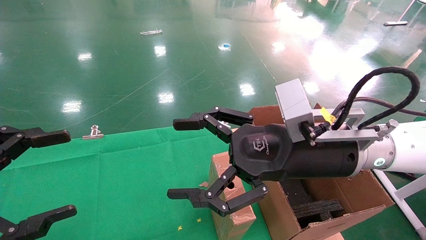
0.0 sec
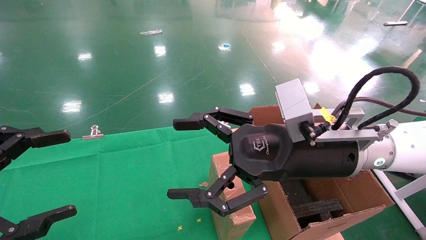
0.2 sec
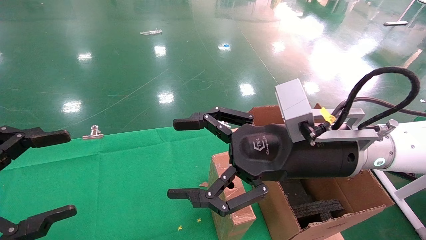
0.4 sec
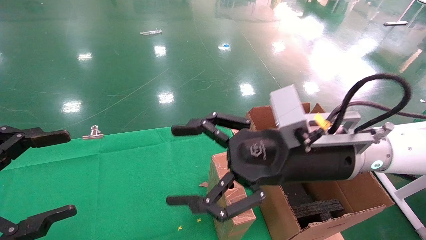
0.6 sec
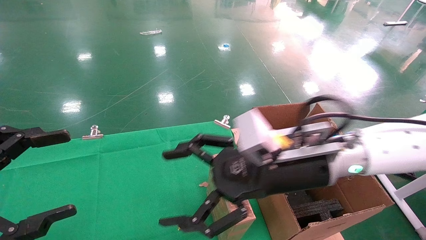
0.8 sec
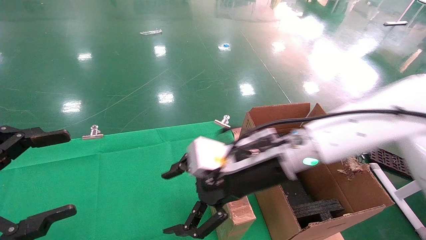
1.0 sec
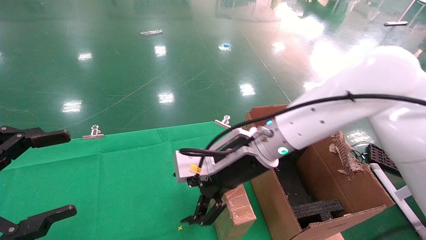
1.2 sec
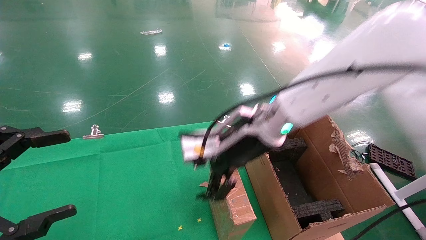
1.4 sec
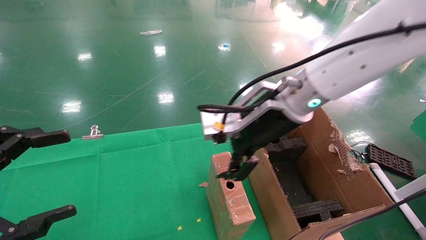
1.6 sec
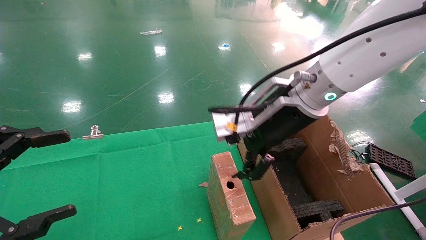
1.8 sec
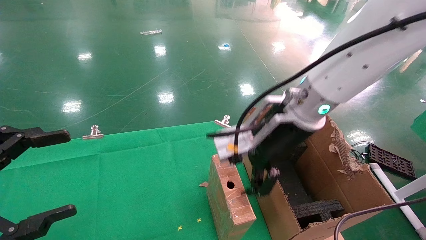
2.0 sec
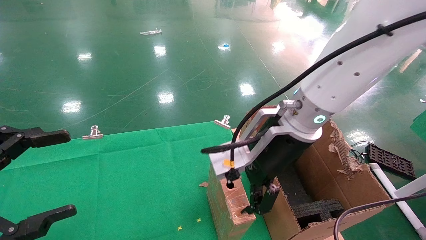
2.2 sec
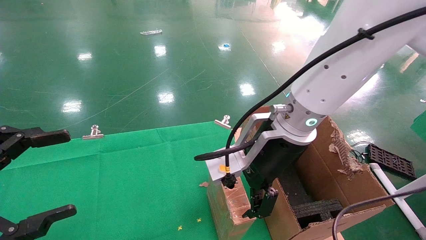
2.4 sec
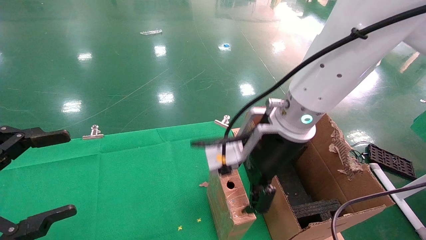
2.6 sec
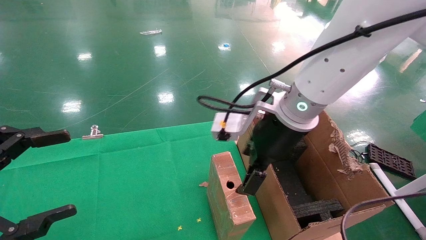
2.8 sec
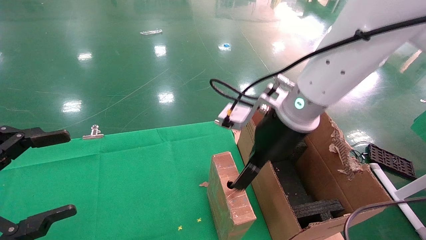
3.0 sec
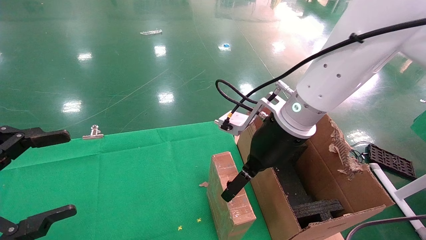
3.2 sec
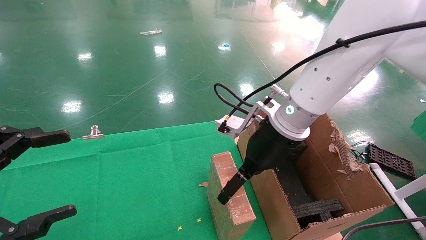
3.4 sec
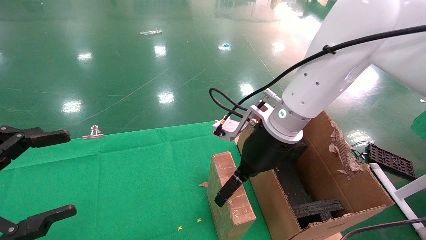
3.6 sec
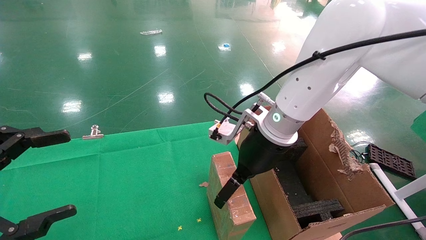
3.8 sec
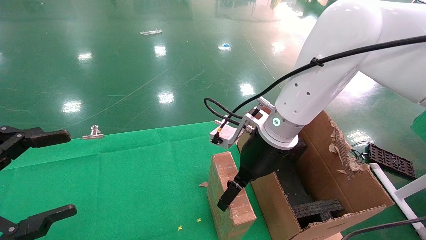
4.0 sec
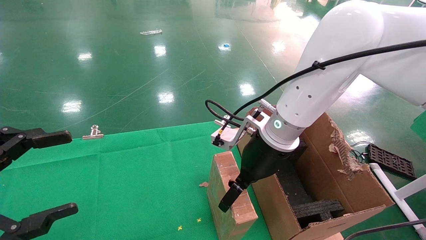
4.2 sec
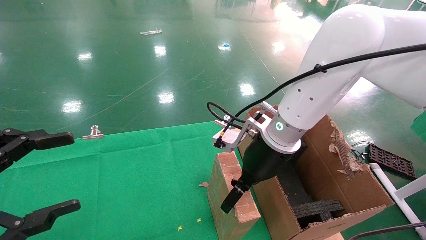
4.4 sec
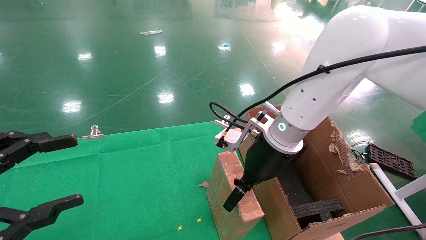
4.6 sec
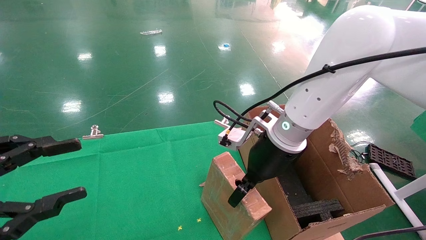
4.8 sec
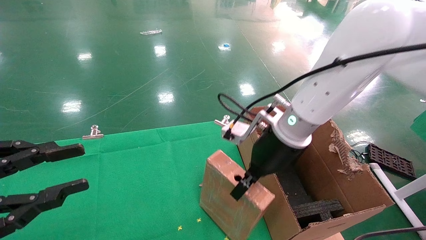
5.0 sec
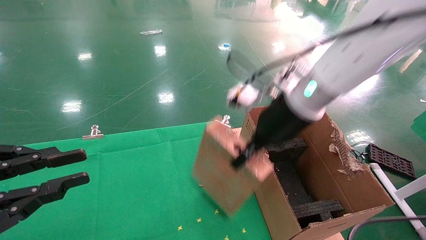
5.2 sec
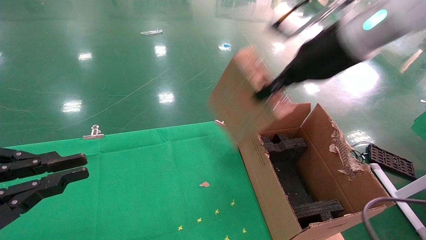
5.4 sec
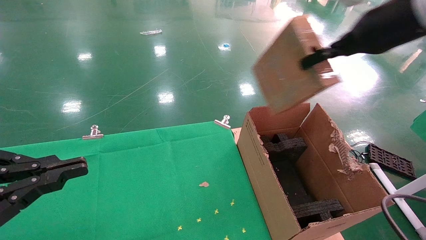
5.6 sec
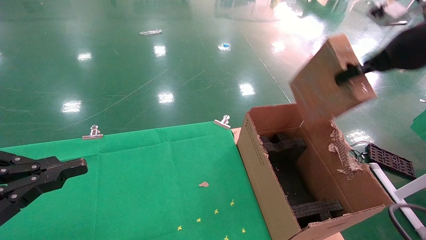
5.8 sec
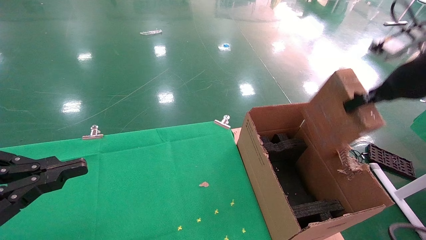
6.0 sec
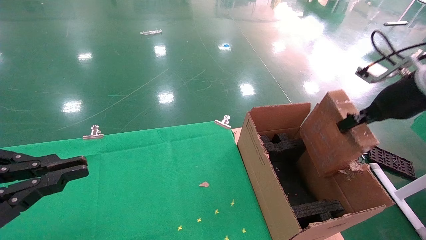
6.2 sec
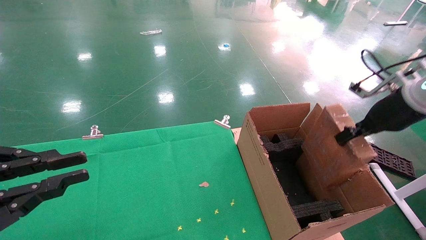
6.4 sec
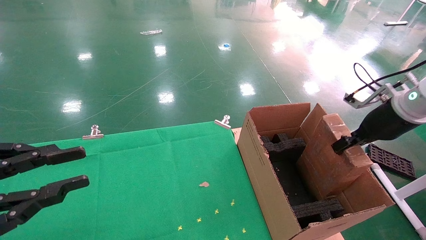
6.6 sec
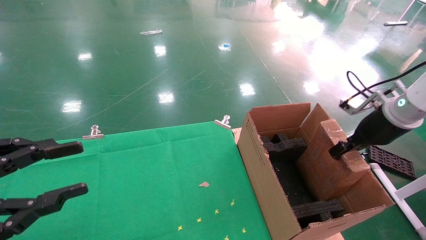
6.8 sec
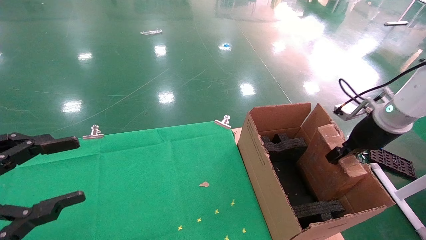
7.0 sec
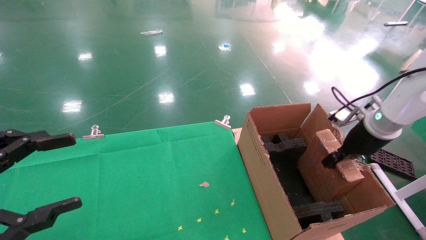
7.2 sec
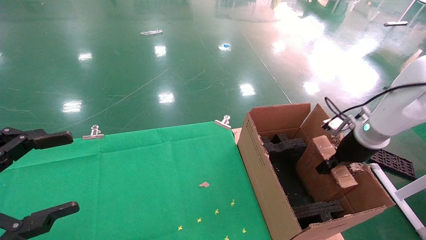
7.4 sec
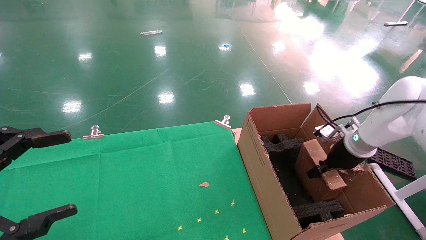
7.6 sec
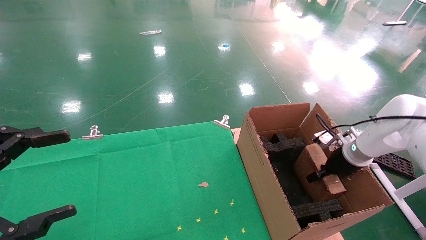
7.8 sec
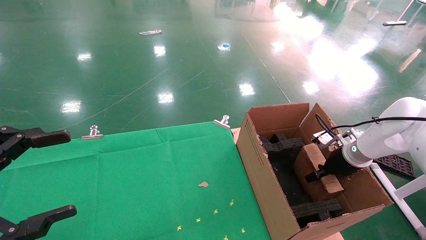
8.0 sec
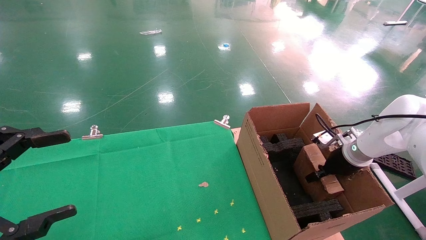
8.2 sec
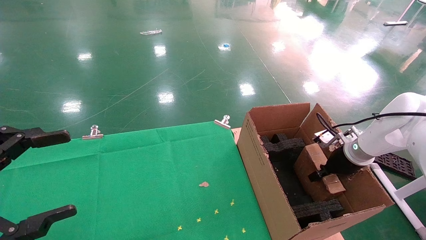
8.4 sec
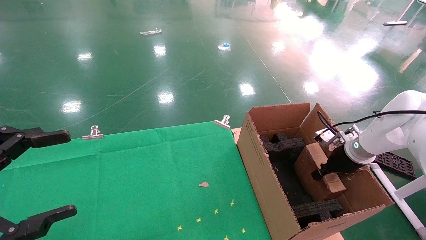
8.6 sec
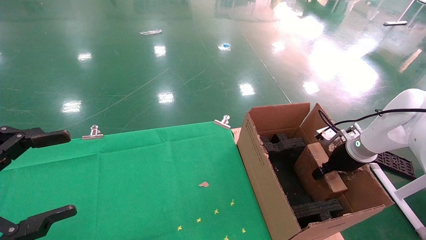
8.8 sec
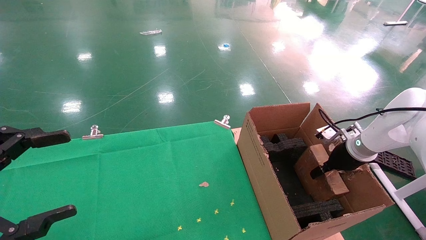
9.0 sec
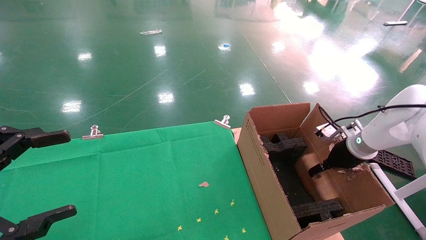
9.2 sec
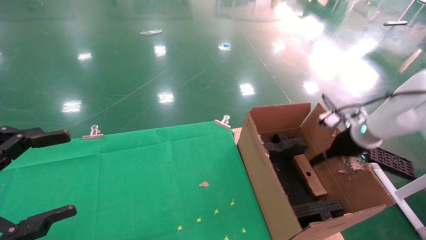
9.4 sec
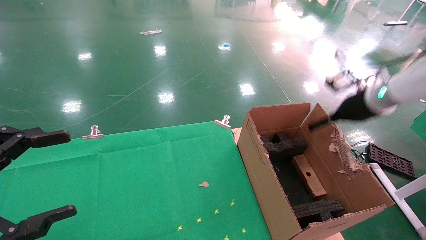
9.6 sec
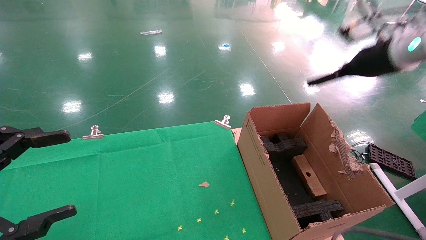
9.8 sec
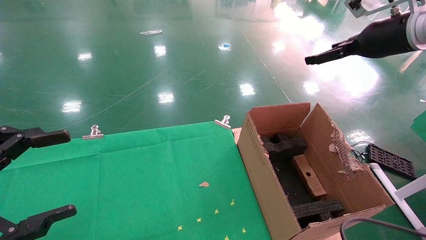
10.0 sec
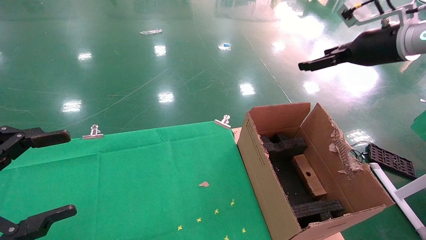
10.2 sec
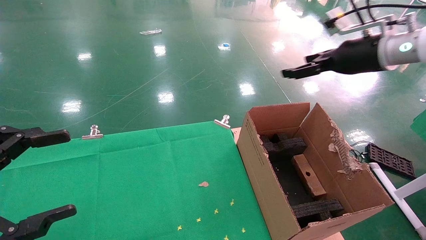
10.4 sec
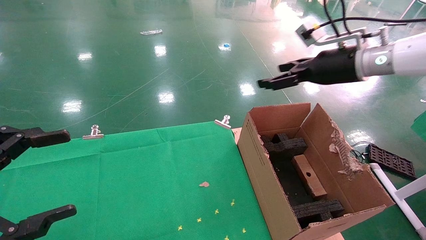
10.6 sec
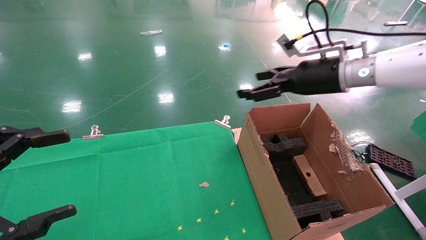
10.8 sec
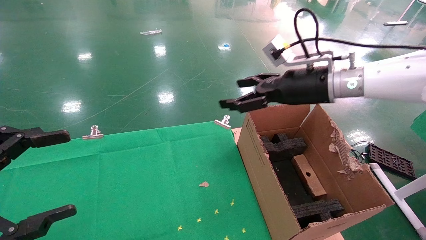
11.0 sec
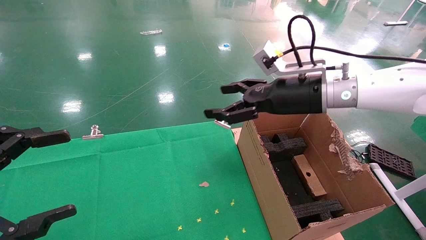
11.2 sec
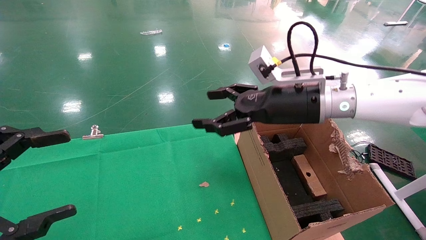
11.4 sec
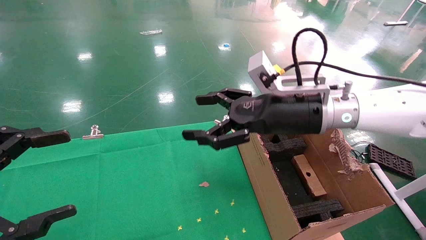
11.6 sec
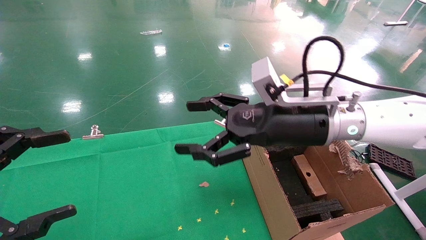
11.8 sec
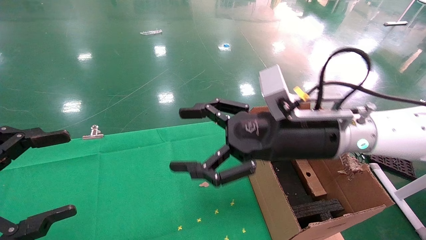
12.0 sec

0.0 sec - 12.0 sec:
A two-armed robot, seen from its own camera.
Task of the whole recording: using a robotic arm to pick up a cardboard box and palace it the carton.
Step, 0.8 sec - 5.0 sec: Pick up the mouse and the power cord paper box.
Step, 5.2 sec - 9.4 sec: Place the mouse and the power cord paper box into the container.
0.0 sec - 1.6 sec: The right gripper travels forward by approximately 5 cm.
3.0 sec - 4.4 sec: The right gripper shifts by some 5 cm.
4.4 sec - 6.0 sec: The left gripper closes; the right gripper shifts approximately 30 cm to the right and upward, and closes.
6.0 sec - 7.6 sec: The right gripper moves downward and forward, some 25 cm, while the left gripper opens its fingers.
7.6 sec - 9.0 sec: The right gripper opens up.
9.0 sec - 10.4 sec: The right gripper moves upward, roughly 25 cm, and opens up.
10.4 sec - 12.0 sec: The right gripper goes about 25 cm to the left, downward and backward.

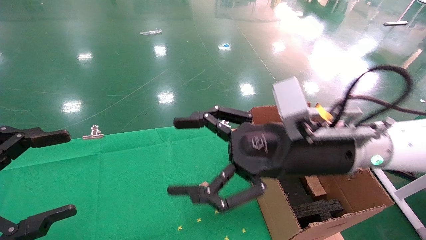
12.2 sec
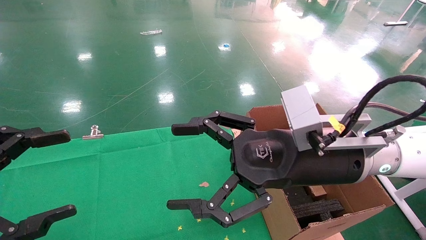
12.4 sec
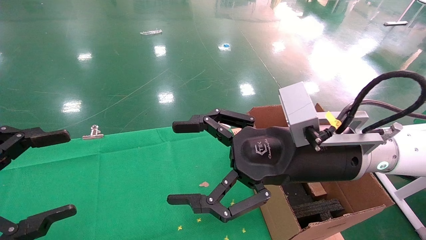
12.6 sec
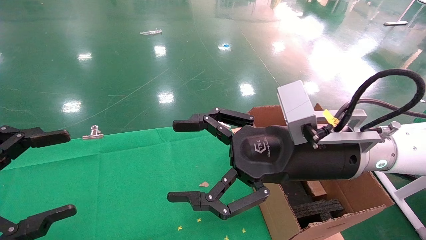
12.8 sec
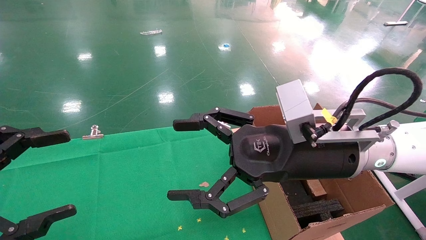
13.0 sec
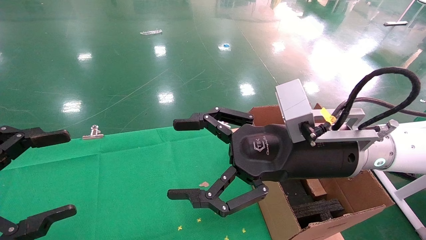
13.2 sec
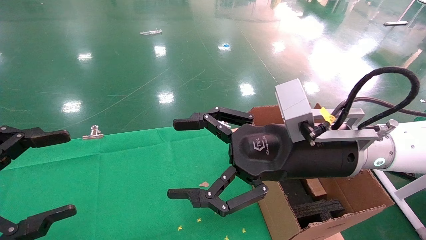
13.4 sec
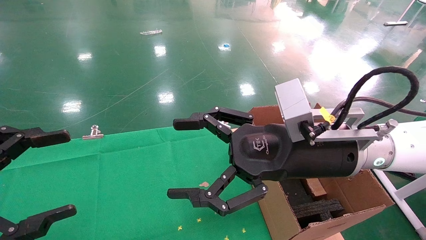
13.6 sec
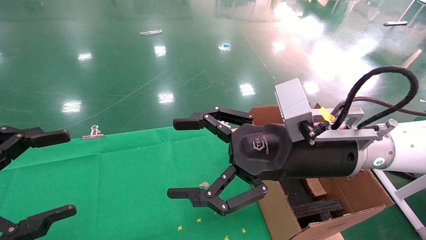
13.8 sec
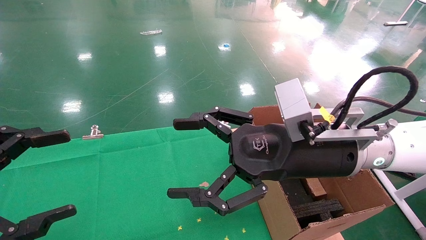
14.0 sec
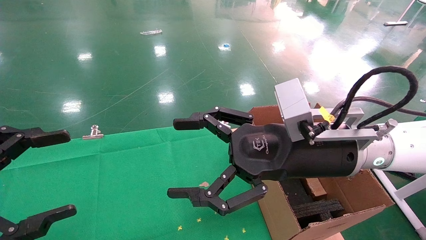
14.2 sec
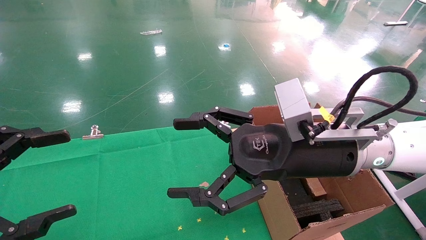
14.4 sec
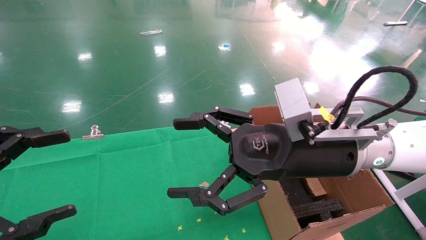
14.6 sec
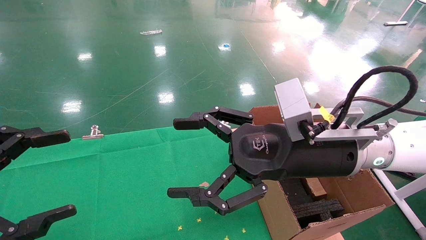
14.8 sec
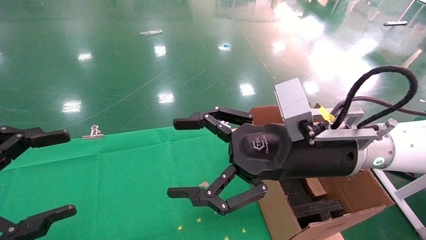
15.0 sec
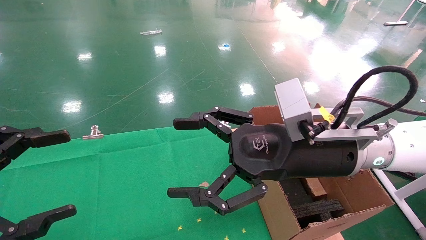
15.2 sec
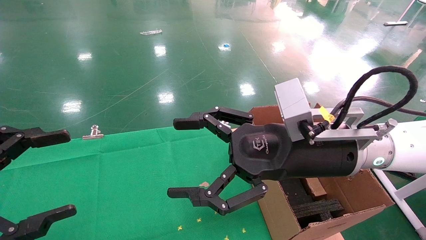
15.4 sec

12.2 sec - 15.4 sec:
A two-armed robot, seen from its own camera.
Task of the whole recording: using a robotic arm to pick up a cardboard box and palace it the carton.
12.2 sec - 15.4 sec: Both grippers stay about where they are.

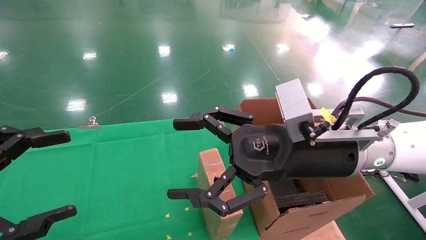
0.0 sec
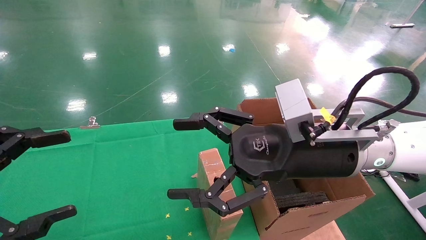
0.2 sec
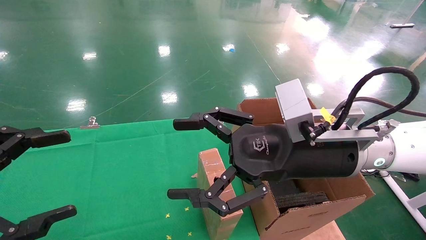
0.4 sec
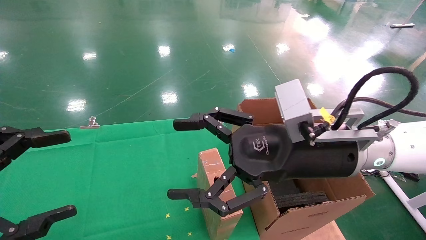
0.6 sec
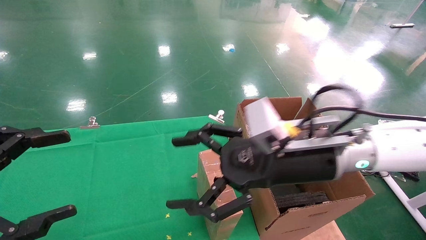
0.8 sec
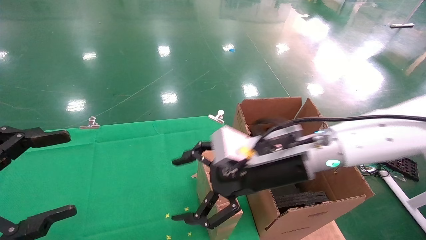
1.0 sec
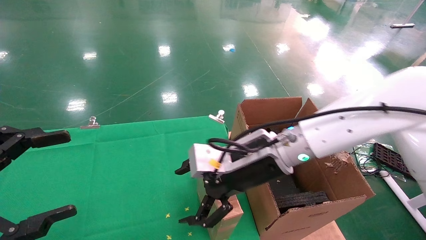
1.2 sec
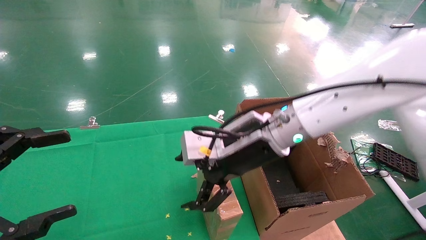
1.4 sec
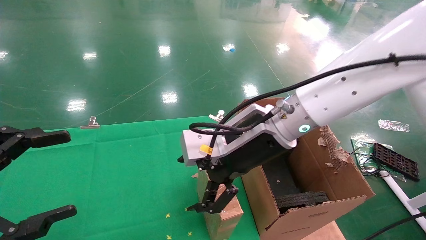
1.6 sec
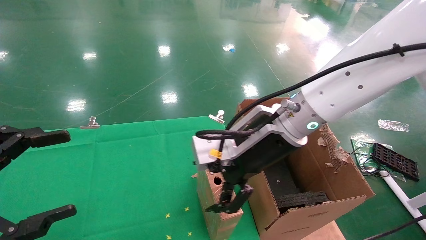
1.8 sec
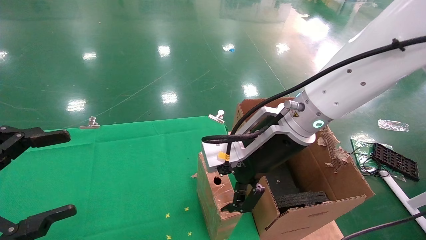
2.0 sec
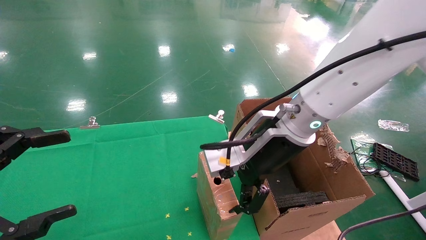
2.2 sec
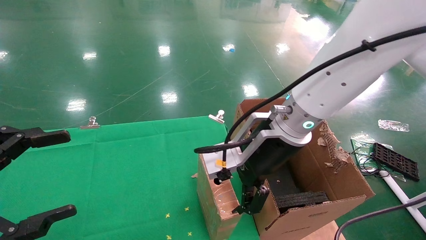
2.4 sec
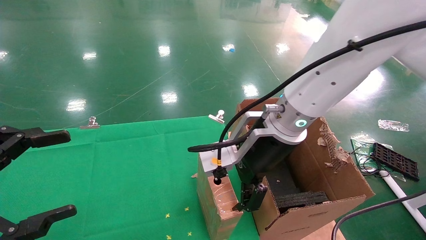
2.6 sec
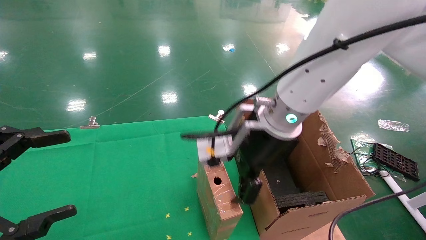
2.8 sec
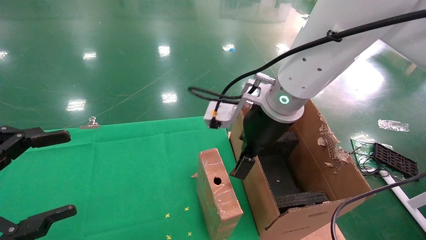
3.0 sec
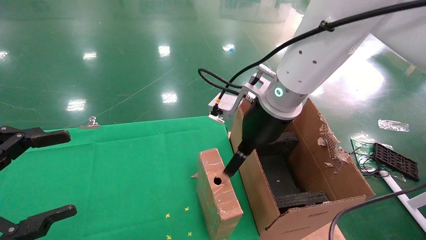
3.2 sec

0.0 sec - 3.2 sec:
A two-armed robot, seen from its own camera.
Task of the whole recording: using a robotic arm to pick up a cardboard box and palace it the carton.
0.0 sec - 1.6 sec: The right gripper goes approximately 10 cm to the left and forward.
